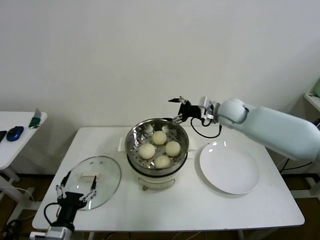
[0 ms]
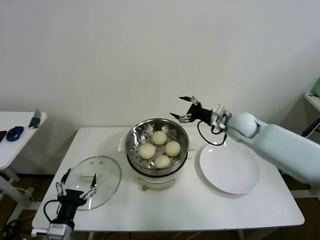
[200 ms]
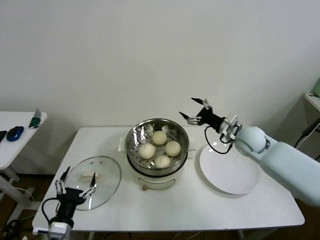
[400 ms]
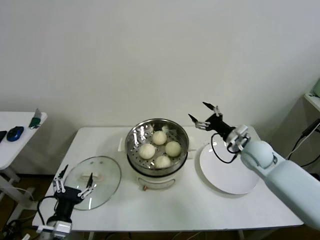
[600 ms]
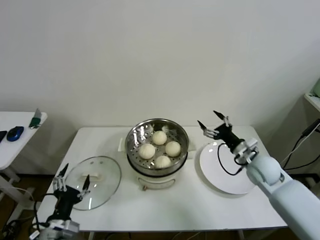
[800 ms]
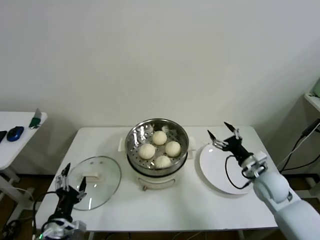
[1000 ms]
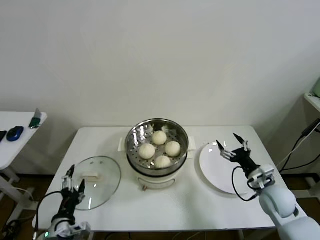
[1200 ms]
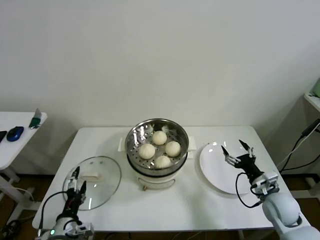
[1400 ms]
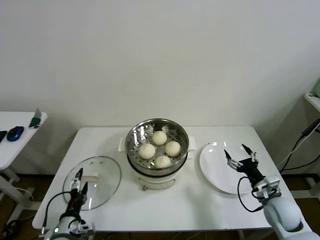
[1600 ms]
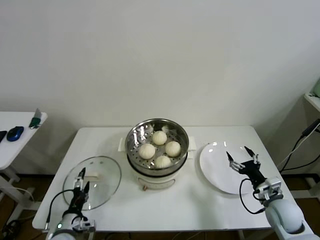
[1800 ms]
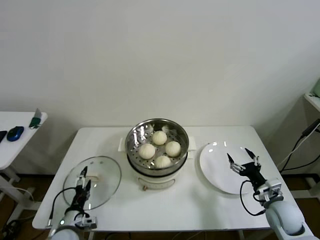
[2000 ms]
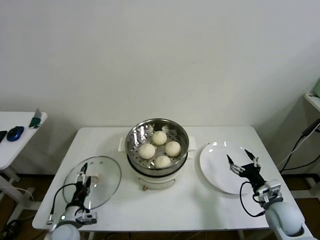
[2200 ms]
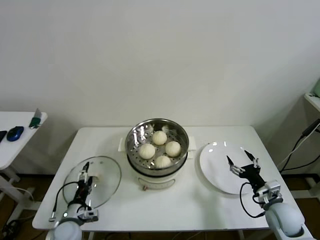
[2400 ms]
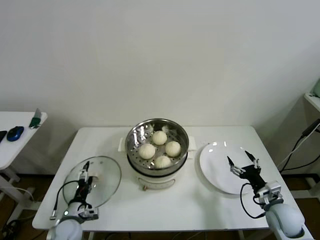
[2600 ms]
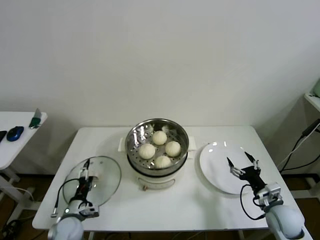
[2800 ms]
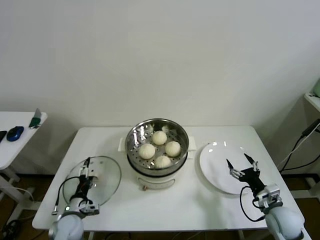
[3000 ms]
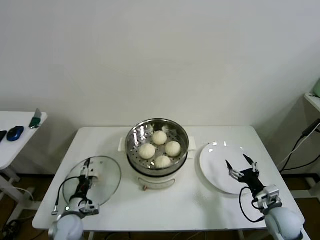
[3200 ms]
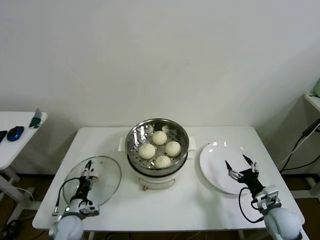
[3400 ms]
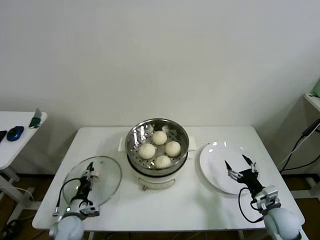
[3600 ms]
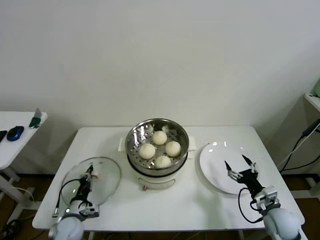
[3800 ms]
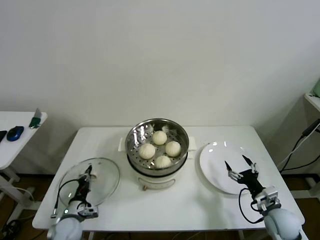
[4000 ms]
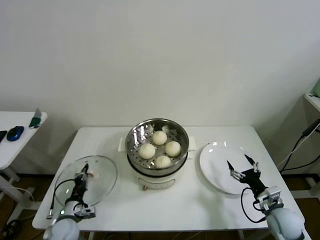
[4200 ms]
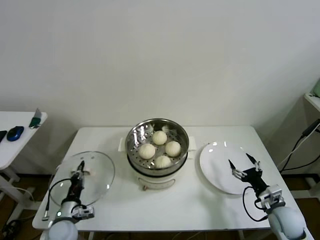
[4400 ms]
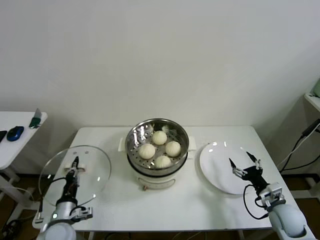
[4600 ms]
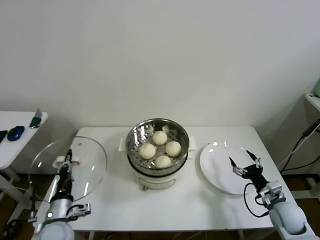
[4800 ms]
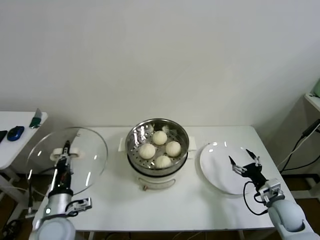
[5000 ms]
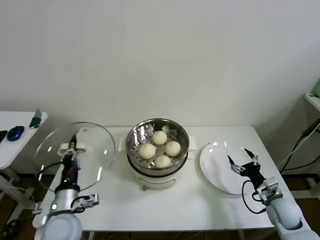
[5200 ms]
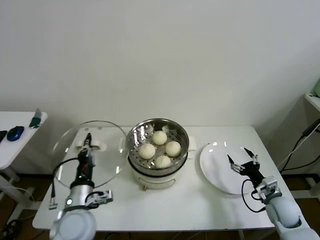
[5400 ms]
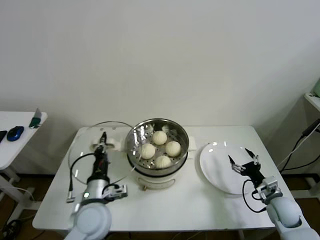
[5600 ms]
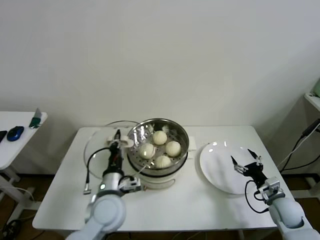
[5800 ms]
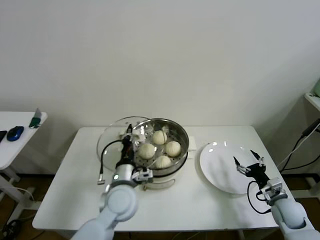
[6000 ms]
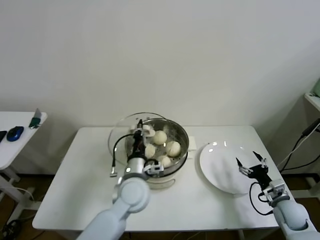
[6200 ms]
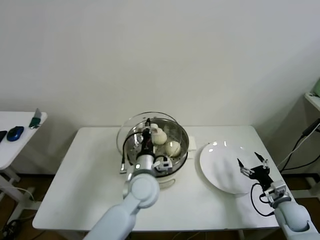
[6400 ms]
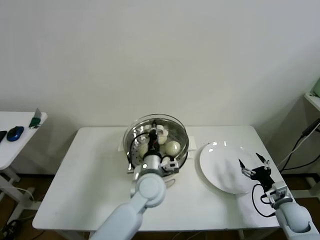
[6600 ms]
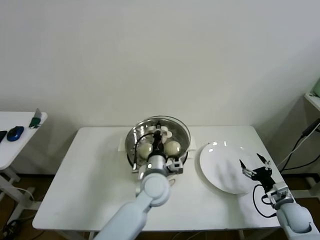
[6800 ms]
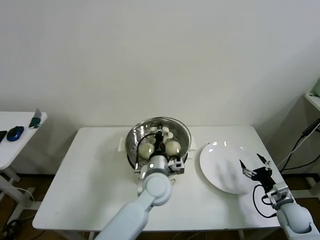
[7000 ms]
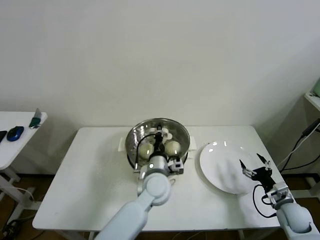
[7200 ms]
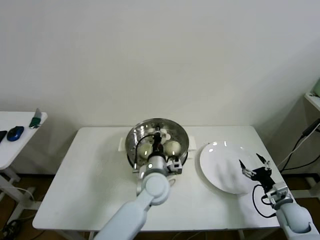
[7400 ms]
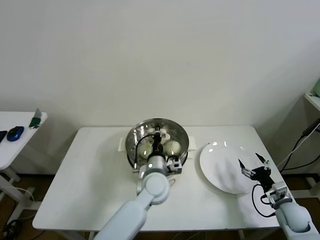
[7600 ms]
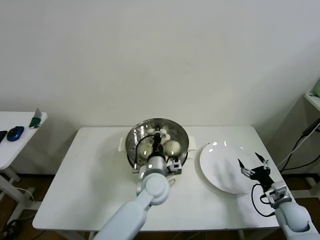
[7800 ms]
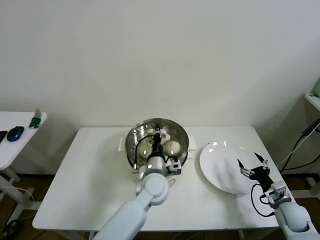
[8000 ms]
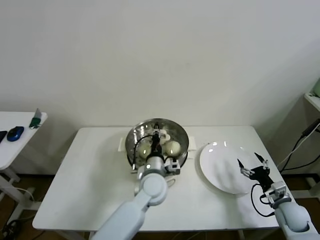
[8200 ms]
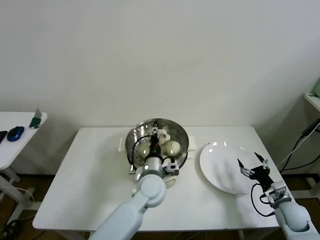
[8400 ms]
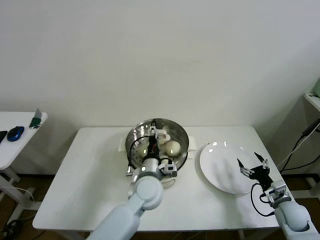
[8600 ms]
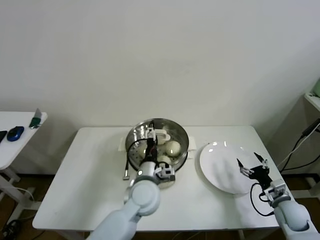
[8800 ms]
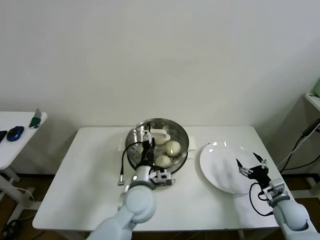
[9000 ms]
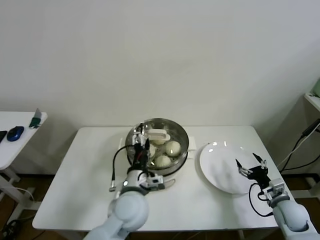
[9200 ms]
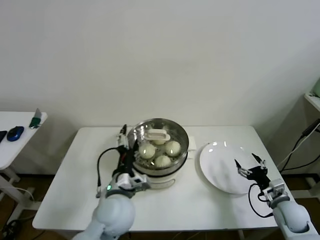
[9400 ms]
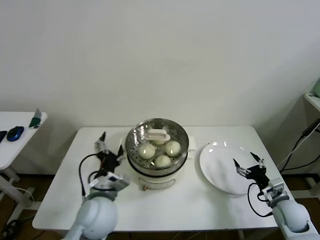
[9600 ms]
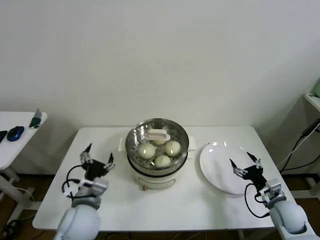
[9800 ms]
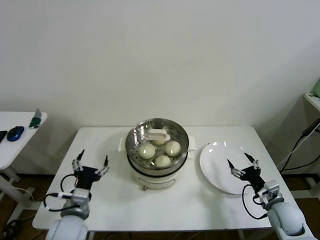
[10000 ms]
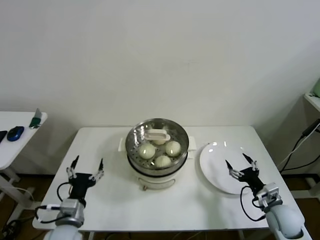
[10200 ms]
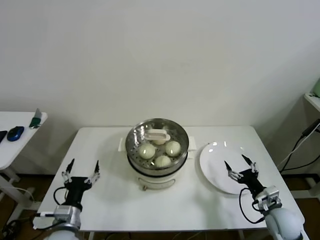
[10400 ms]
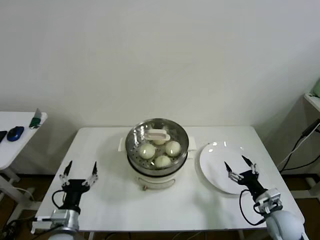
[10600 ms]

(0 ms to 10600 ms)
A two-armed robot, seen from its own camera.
Step, 0 ms - 3800 ms: Grasp the pot lid with left gripper.
Step, 4000 ms - 8200 ms: Place the pot lid on the steamer with left gripper.
0 ms - 1600 ms: The left gripper is displaced downward by roughly 5 cm. The right gripper moves backward, downward and to the right, roughly 35 cm.
1600 ms - 3000 ms: The left gripper goes some 10 cm forward and downward.
3000 ms - 4600 ms: The left gripper shifts about 5 cm upward, and closes.
4600 ms - 6000 ms: The left gripper heads to the right and upward, covering some 25 cm.
6000 ms - 7600 ms: The left gripper is displaced to the right and forward by roughly 10 cm.
7600 ms - 9000 ms: The left gripper changes place by about 5 cm, and opens.
9000 ms - 10600 ms: The left gripper goes approximately 25 cm to the left and backward; the right gripper shifts by approximately 5 cm.

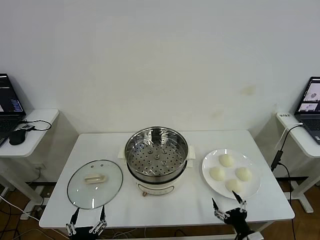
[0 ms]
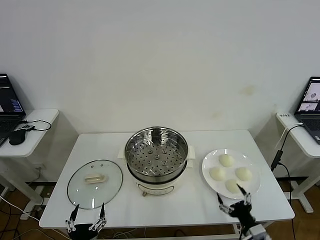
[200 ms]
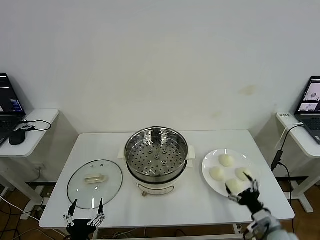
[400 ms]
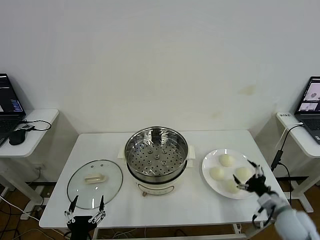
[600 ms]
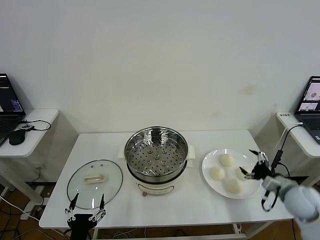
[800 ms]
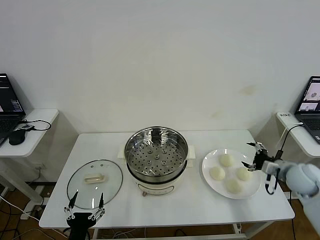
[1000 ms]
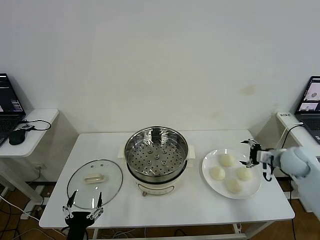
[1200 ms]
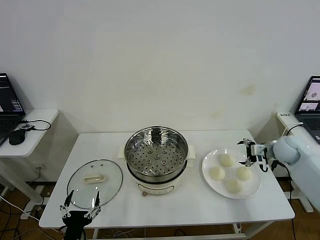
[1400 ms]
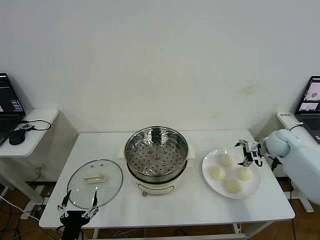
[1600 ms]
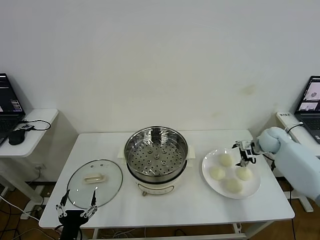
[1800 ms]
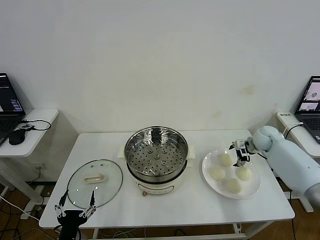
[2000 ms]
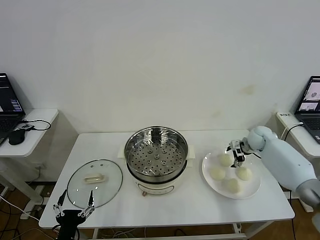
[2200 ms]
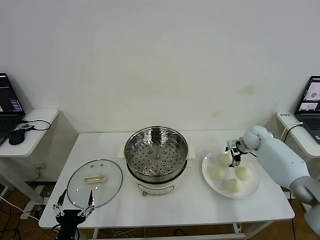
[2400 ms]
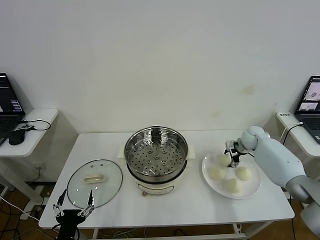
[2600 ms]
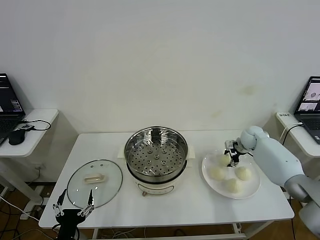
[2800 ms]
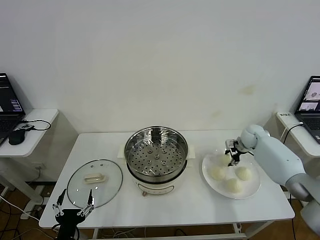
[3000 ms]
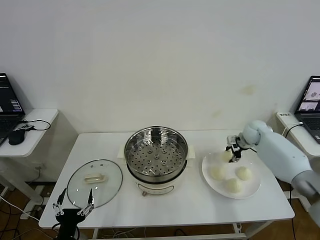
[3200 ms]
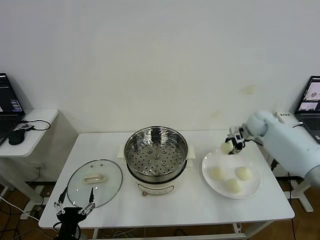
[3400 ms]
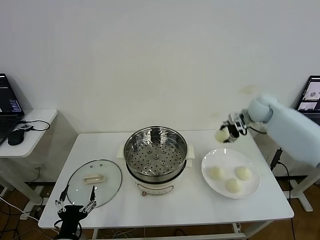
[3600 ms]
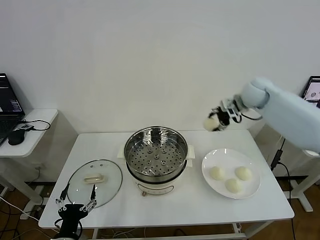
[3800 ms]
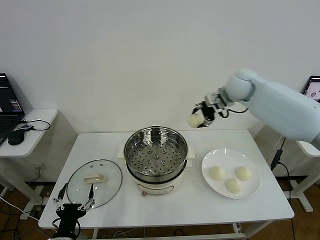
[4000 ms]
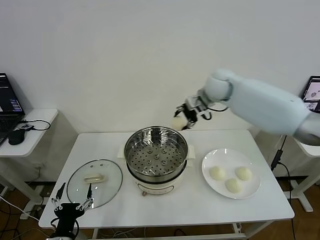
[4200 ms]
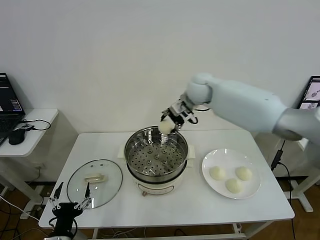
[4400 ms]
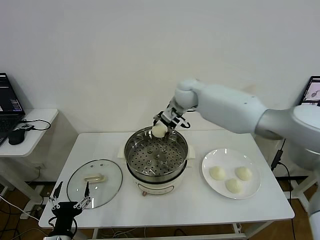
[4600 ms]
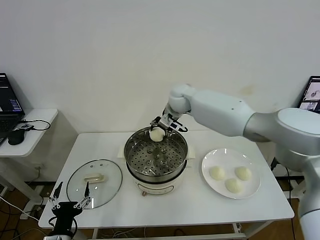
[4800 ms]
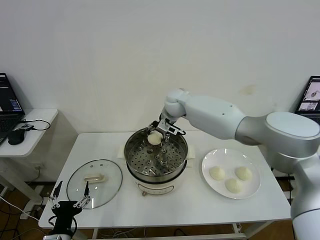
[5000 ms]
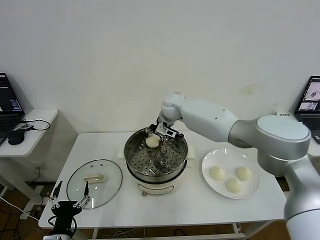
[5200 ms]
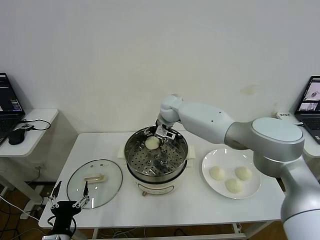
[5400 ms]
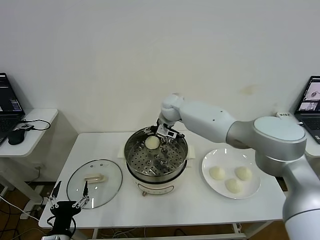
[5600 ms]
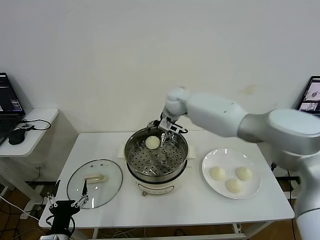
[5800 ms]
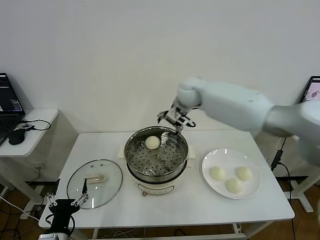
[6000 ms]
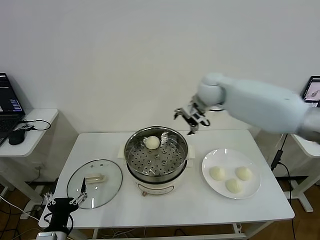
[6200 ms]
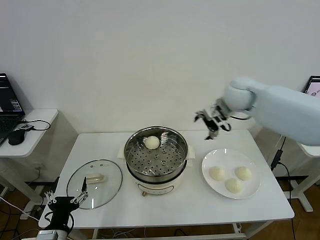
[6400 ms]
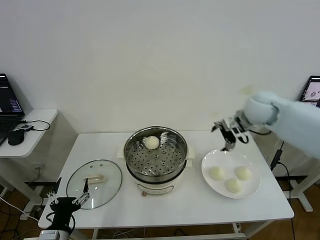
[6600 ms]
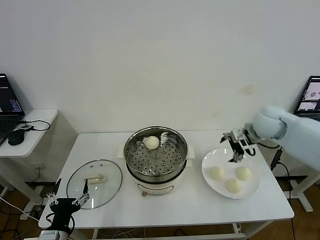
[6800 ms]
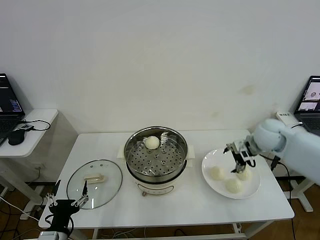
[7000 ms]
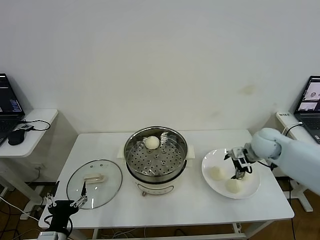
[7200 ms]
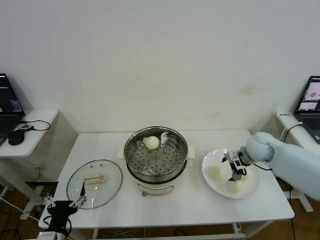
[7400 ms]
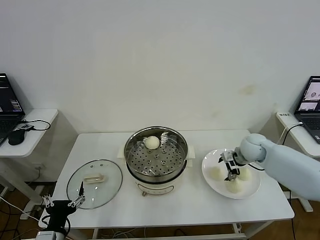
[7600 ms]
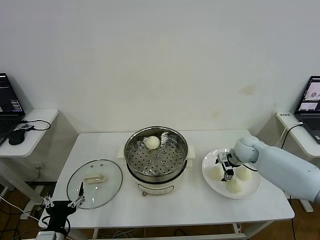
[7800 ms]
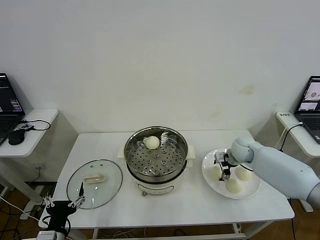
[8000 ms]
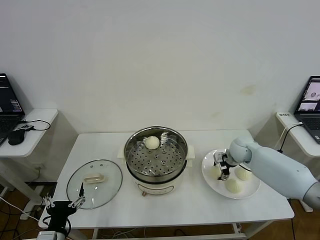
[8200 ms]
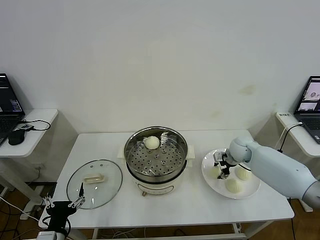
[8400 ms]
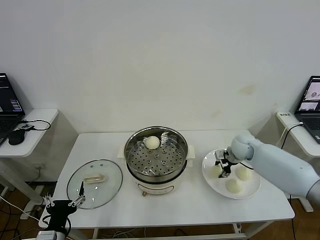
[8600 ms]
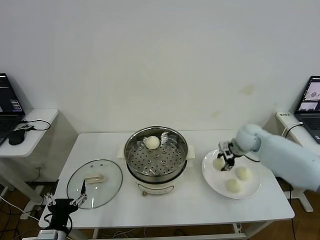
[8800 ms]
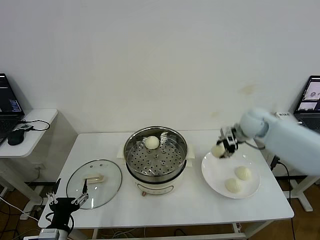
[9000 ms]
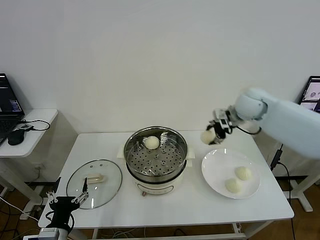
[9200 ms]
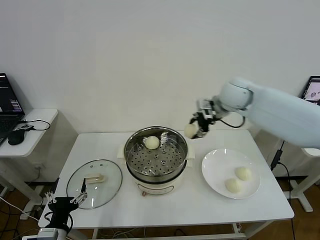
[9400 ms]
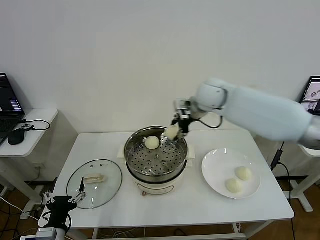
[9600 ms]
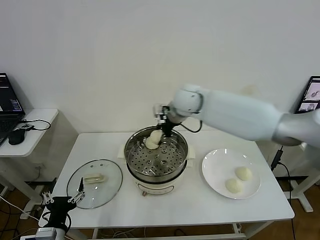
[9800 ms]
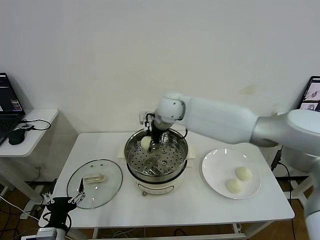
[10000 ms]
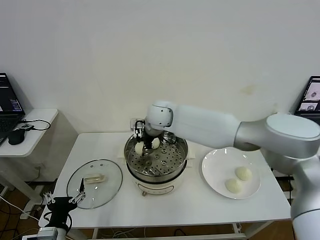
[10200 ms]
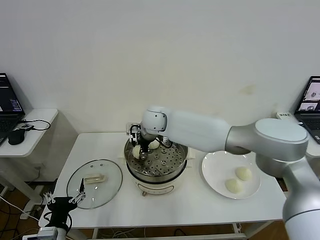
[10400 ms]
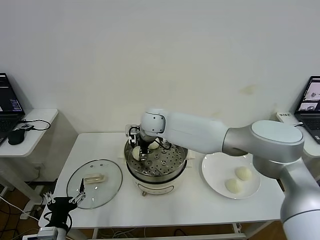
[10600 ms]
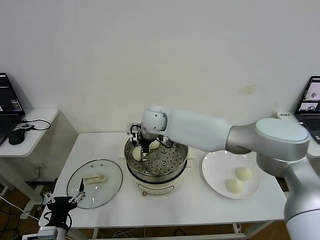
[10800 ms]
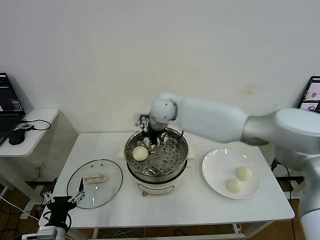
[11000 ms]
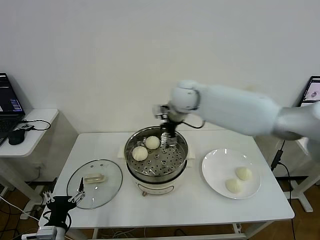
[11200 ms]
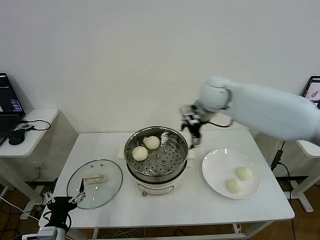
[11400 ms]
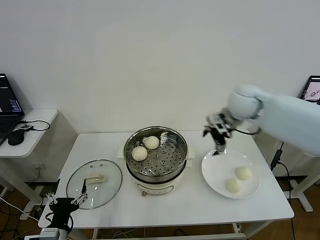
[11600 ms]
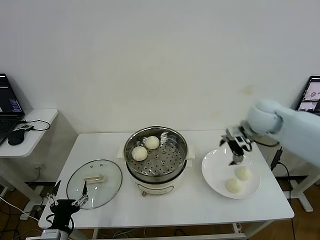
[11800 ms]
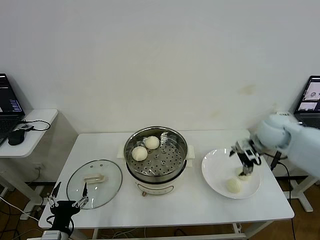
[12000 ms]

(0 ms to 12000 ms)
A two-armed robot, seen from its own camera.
Step, 0 ms - 3000 ms: Grasp the baozi in the plate with right gripper.
Step, 3200 ms - 5400 ms: Place the baozi on the steamer with right gripper.
Step, 5600 ms - 8200 ms: Grasp the baozi in the plate with right gripper.
Step, 8400 ms - 10800 ms: Place the baozi on the steamer with right gripper.
1600 ms - 3000 ms: The right gripper moves forward, some 5 cm, and closes its fingers.
3000 ms - 4400 ms: The right gripper travels to the left and upward by some 35 cm.
4400 ms - 6000 ms: The right gripper moves roughly 10 cm downward and comes back, and opens.
6000 ms - 7600 ms: The right gripper travels downward and to the right by about 30 cm.
7600 ms - 9000 ms: The right gripper goes roughly 15 cm upward, and closes its fingers.
9000 ms - 10400 ms: The right gripper is displaced to the left by some 30 cm.
10400 ms - 12000 ms: The right gripper shifts about 40 cm to the right, and opens its fingers.
